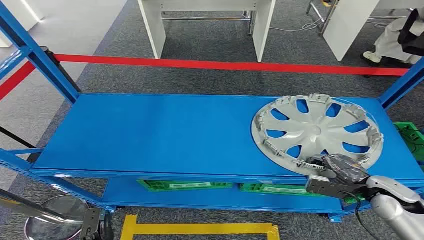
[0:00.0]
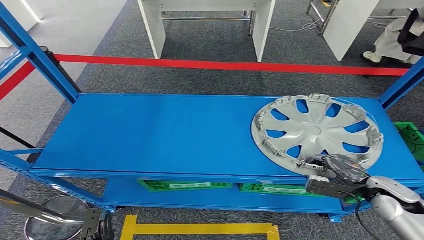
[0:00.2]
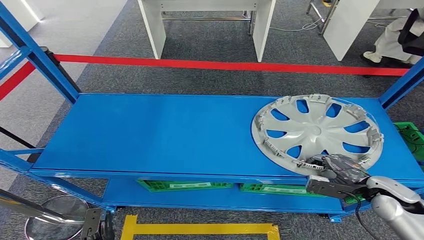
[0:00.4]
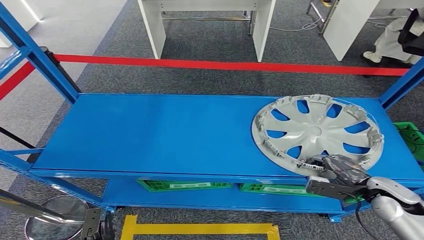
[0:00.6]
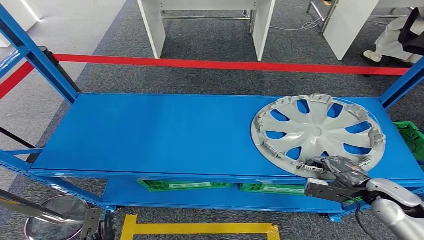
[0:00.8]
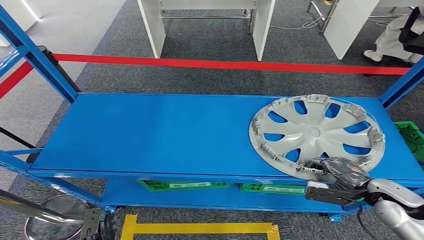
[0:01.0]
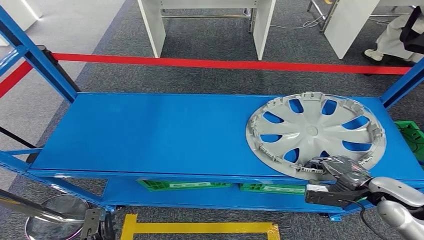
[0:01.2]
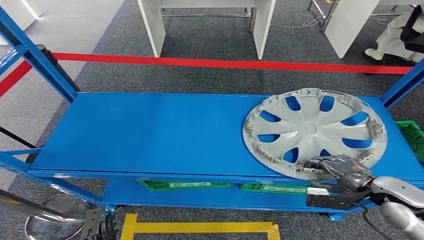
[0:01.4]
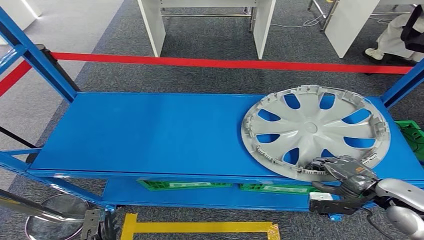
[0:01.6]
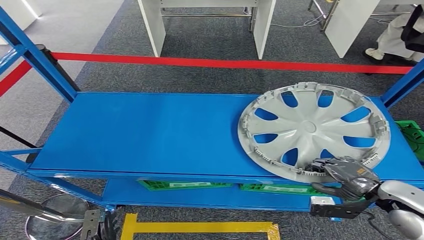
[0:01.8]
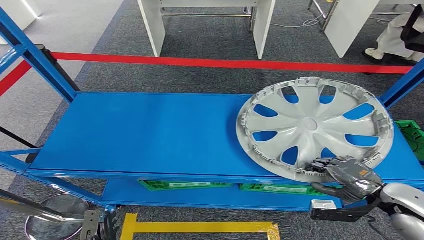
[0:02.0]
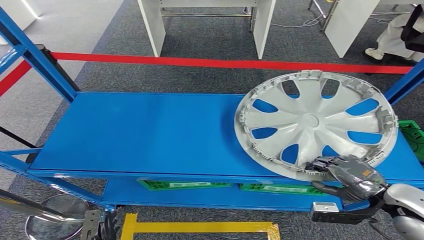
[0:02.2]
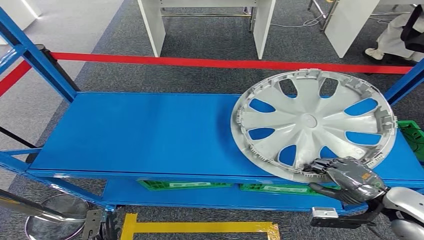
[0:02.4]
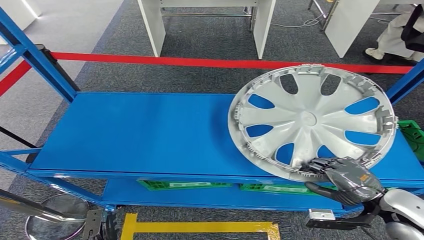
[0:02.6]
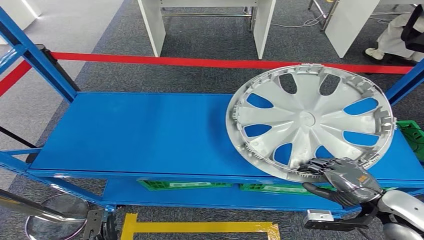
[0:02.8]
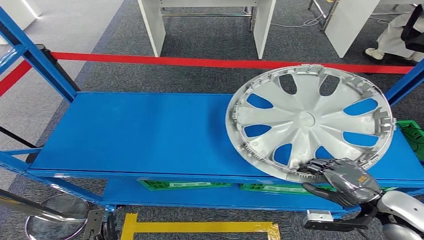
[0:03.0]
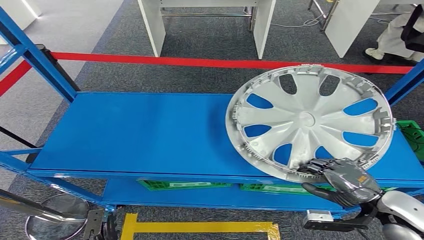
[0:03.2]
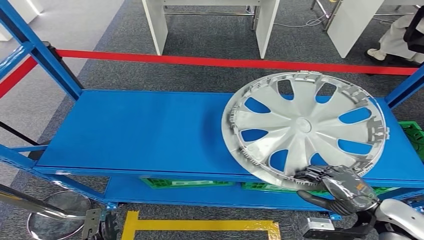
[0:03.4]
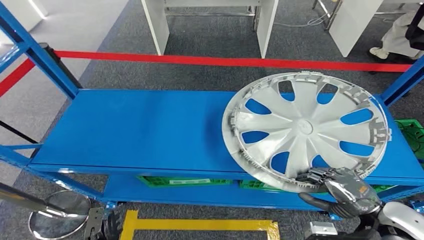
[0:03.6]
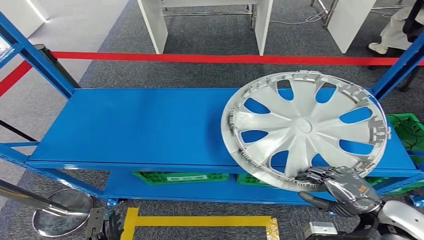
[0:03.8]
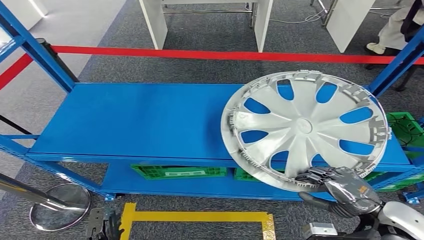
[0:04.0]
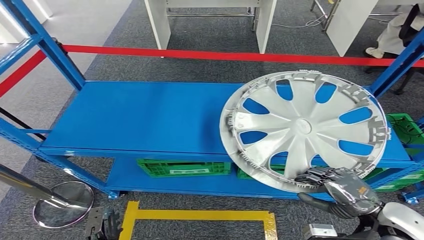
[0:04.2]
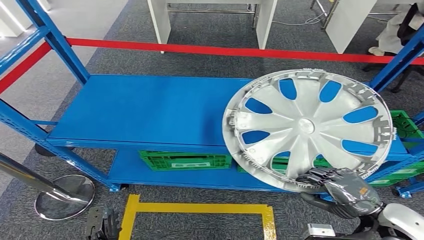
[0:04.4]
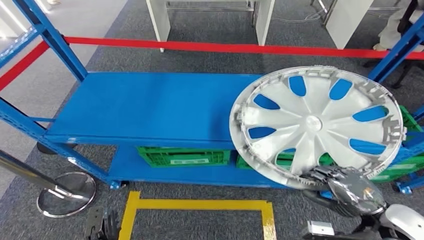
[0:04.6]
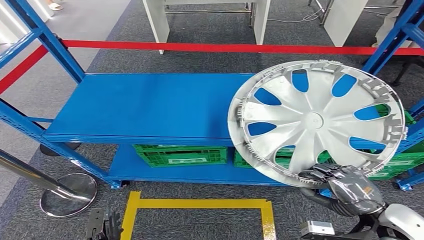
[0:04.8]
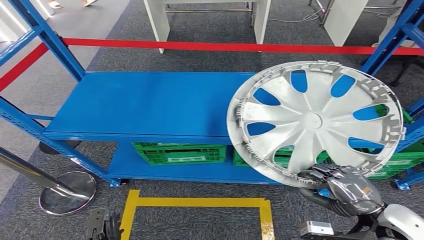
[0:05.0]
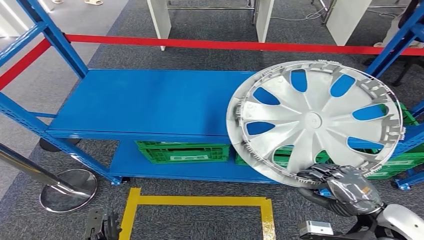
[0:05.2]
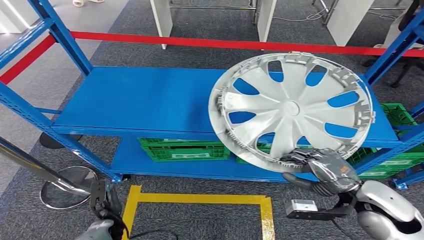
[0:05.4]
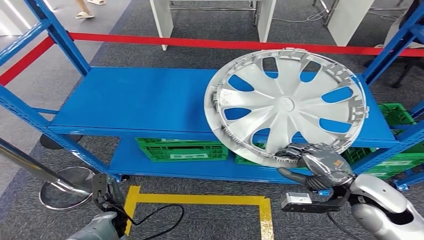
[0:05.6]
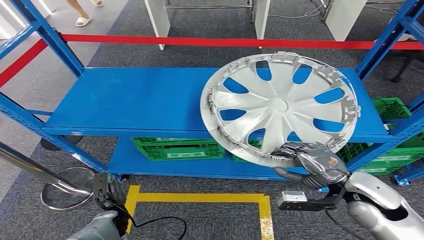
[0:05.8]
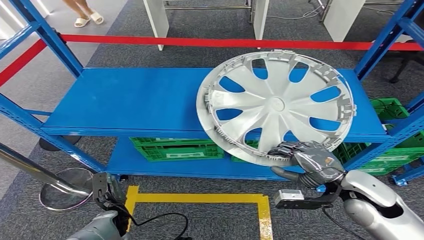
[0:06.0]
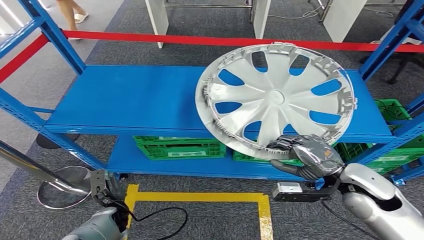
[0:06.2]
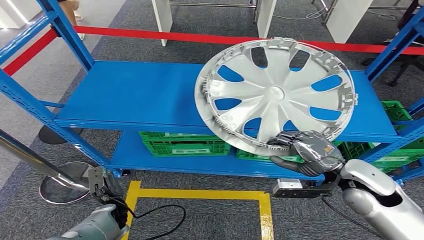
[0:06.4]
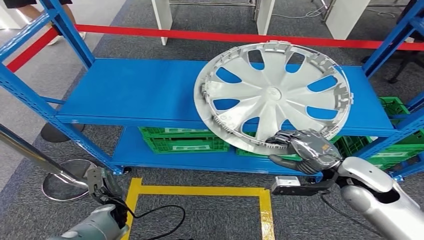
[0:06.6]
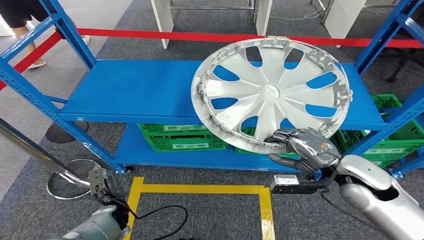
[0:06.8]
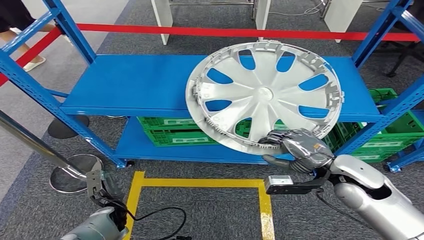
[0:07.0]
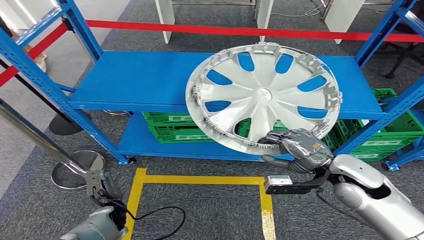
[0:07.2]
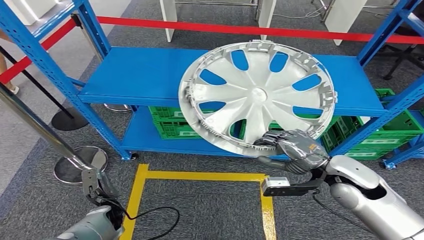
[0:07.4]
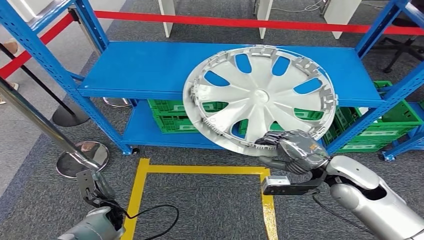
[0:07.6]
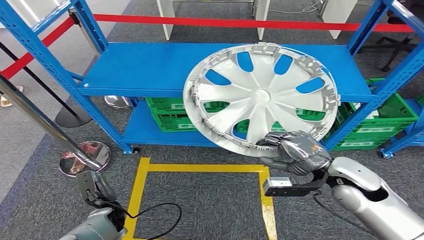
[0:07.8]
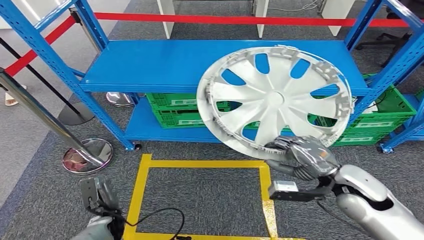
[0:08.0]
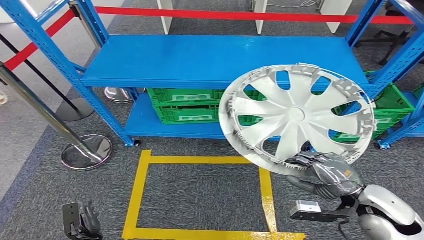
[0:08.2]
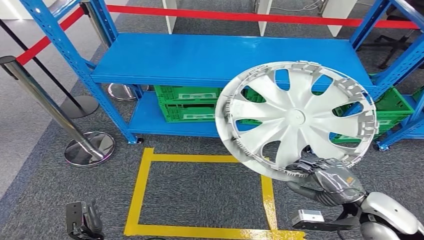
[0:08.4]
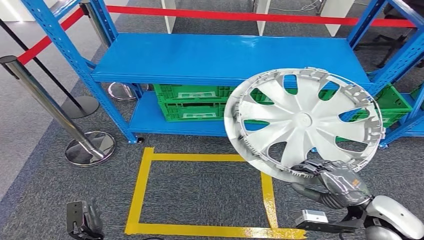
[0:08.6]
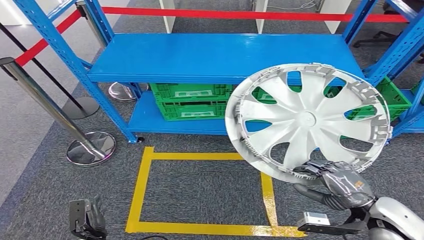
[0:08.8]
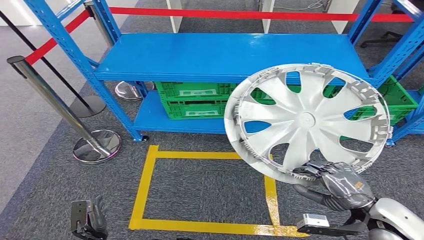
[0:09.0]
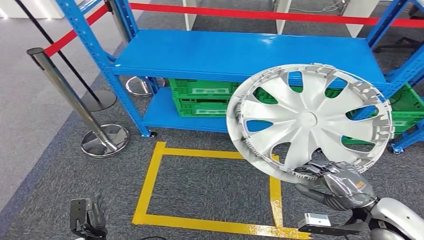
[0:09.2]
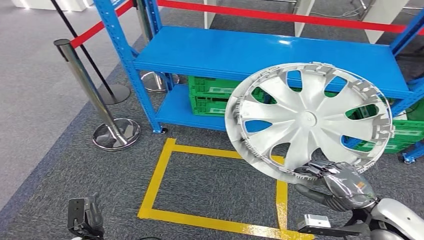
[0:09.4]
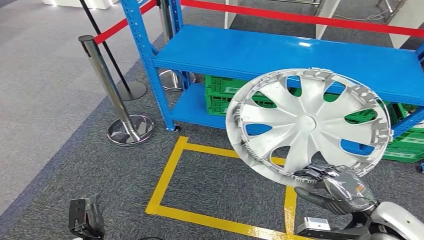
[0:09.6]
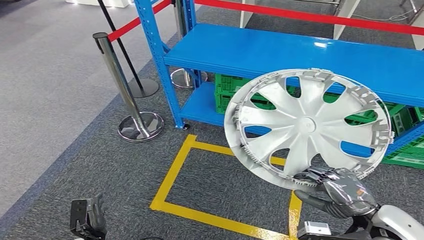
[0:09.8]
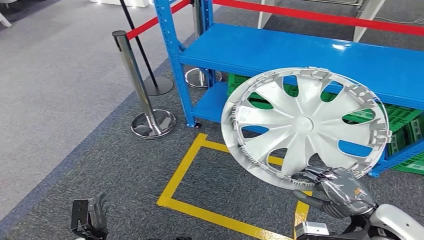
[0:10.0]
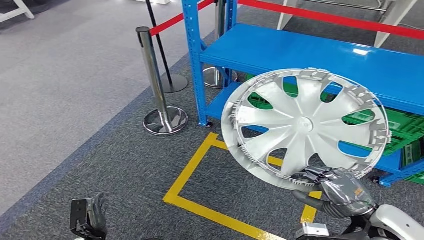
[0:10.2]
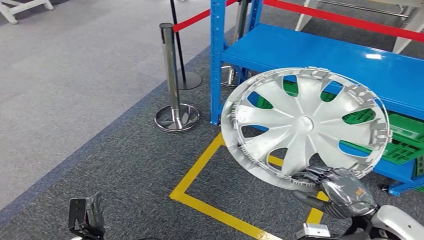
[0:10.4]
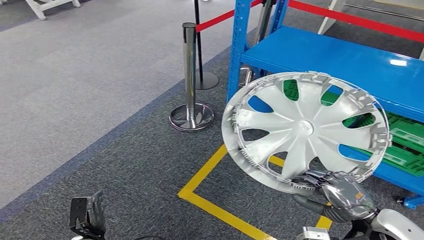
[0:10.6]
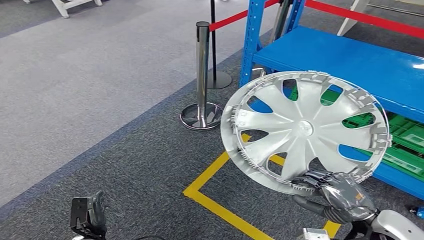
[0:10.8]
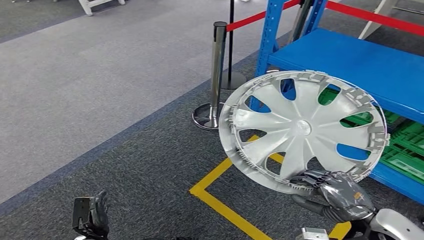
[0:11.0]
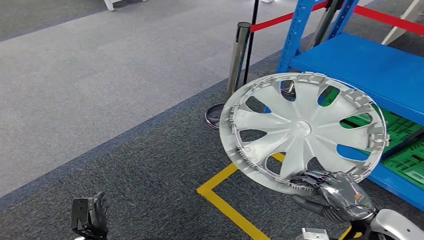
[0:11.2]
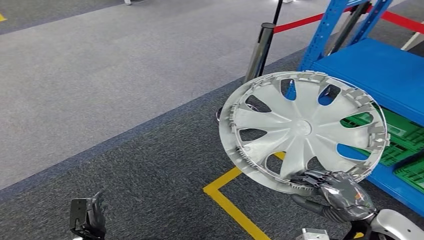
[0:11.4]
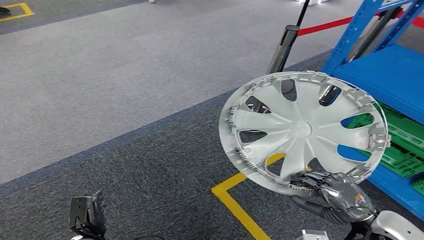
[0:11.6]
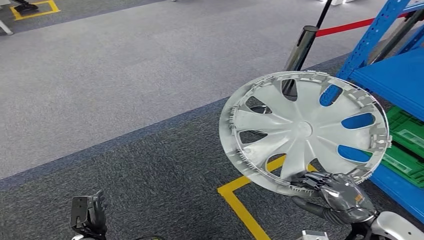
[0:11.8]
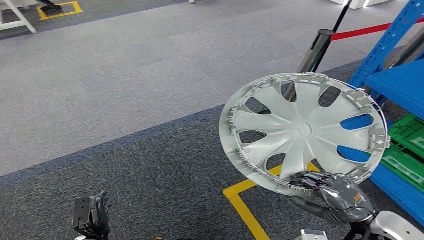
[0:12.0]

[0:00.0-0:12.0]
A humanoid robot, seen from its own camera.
Step, 0:00.0 to 0:05.0: Pick up the small parts from the shelf.
0:01.6 to 0:03.0: The hands make only small movements.

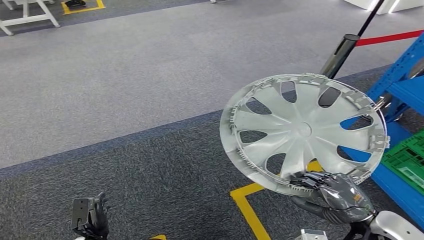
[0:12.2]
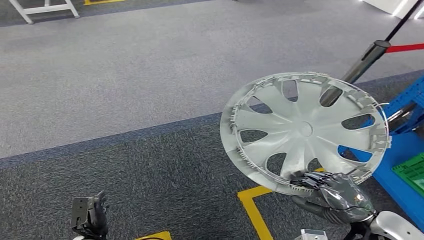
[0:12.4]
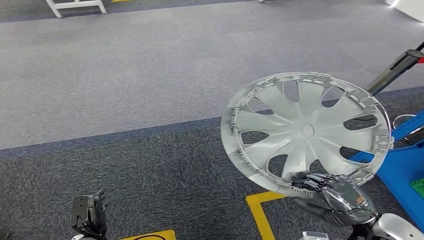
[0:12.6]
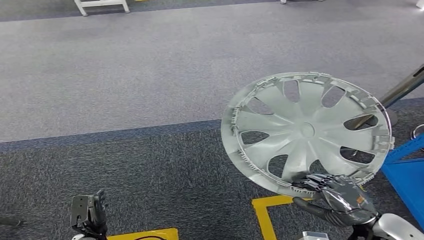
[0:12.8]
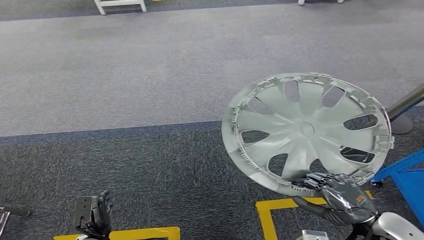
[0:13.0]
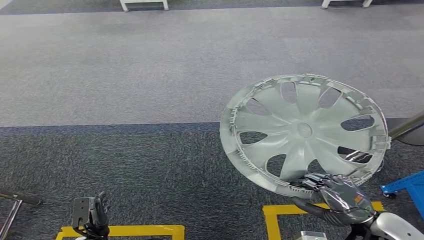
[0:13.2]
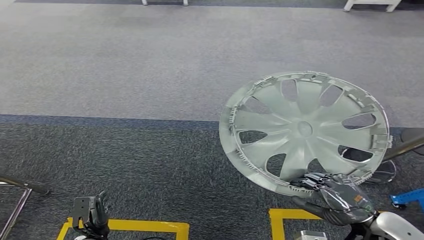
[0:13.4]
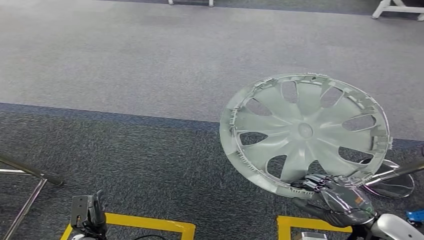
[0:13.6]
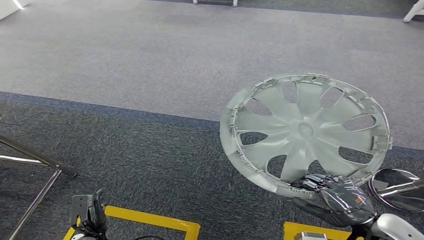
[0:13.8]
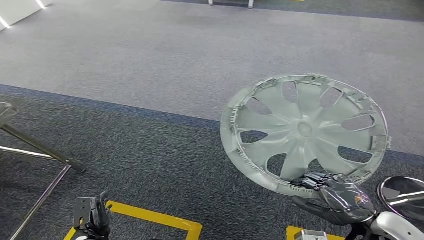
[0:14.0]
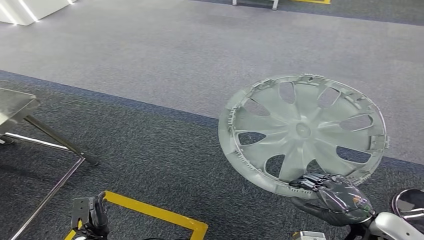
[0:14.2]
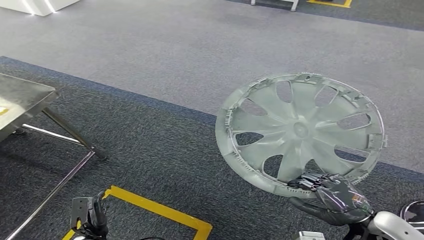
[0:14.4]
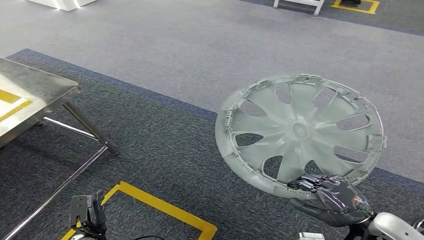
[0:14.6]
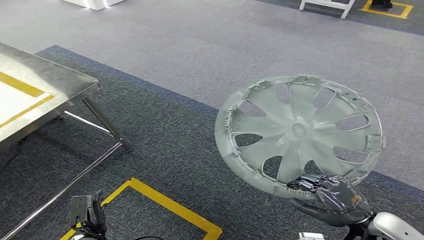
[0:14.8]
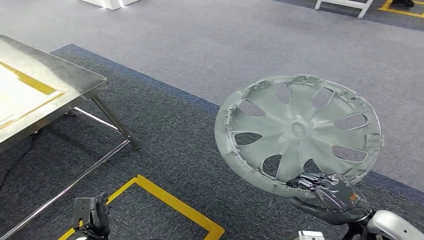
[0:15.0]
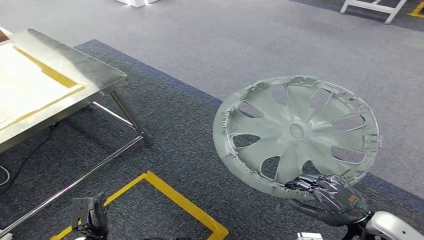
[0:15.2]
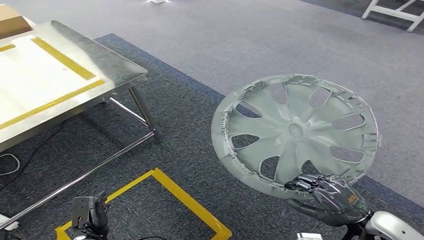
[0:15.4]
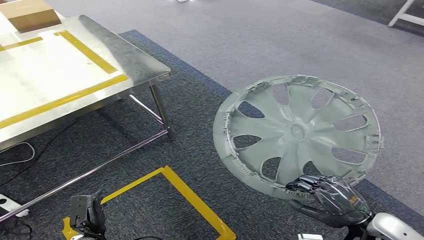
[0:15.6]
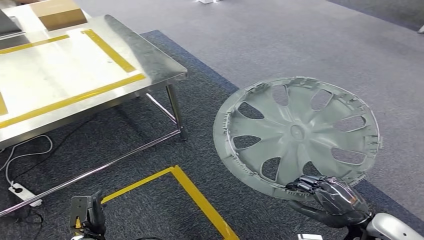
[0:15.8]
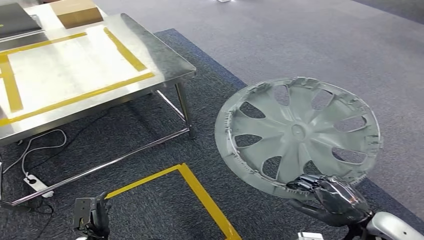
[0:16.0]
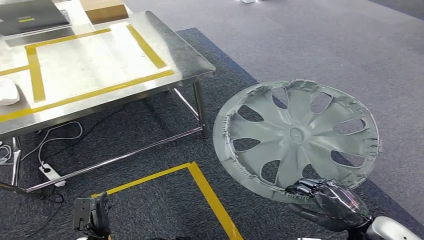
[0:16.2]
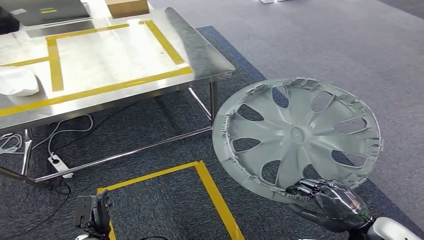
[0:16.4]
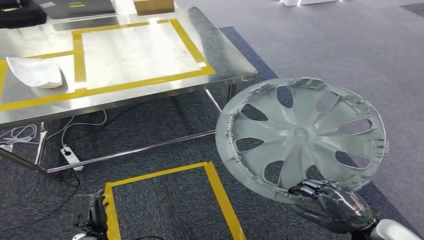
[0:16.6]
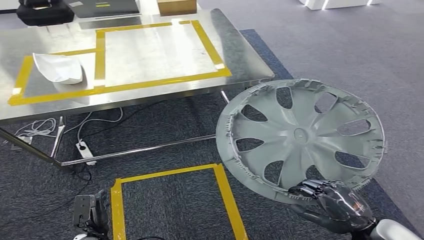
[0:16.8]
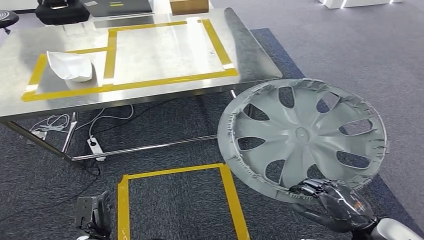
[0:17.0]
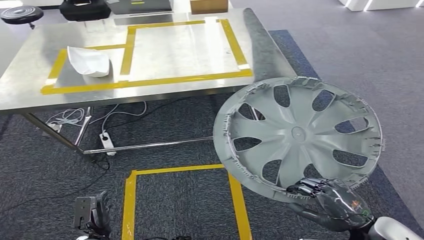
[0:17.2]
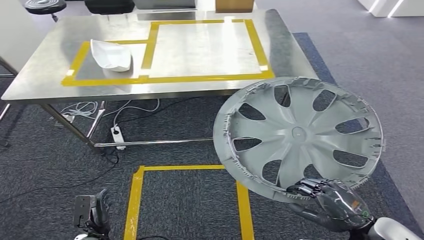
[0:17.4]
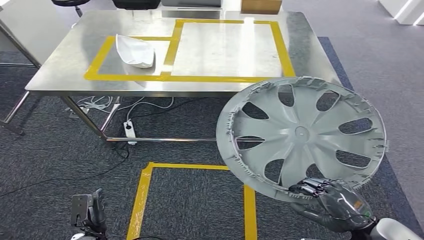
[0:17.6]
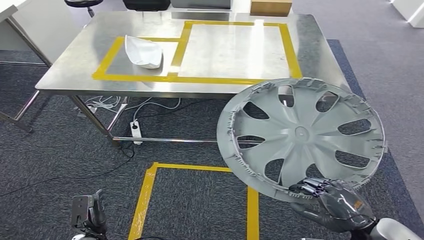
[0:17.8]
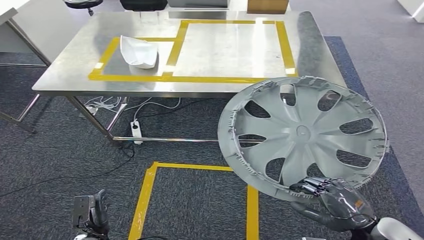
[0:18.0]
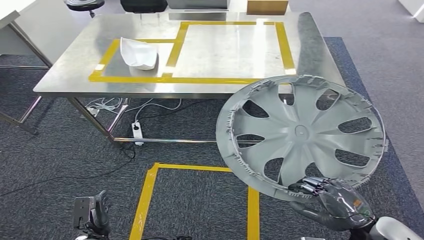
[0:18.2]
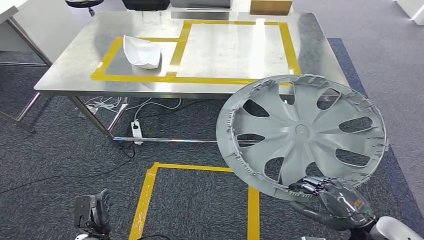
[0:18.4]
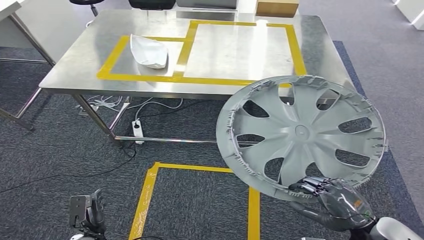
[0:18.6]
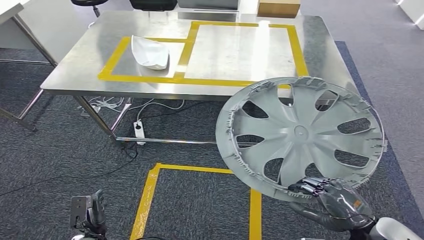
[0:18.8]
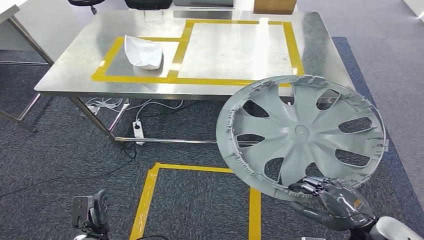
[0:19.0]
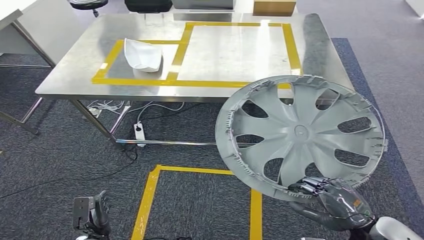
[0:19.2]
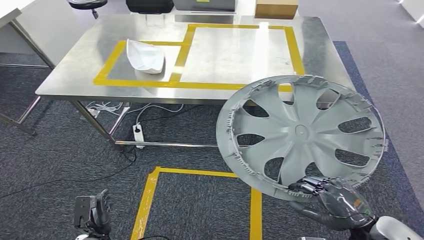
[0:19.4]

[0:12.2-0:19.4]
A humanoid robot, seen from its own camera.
0:18.0 to 0:19.4: Neither hand changes place.
